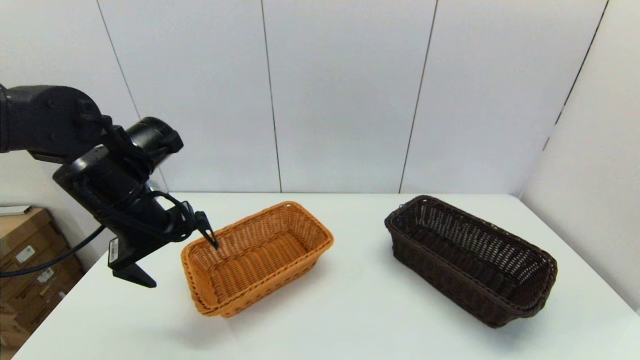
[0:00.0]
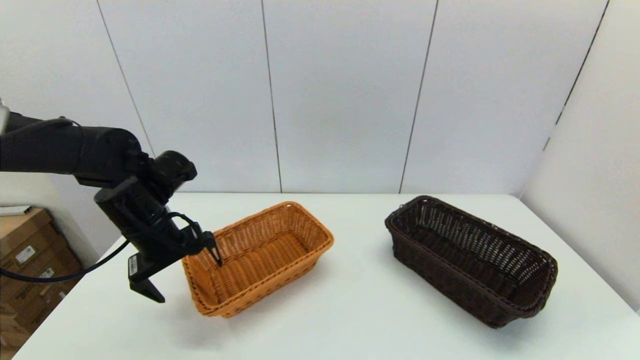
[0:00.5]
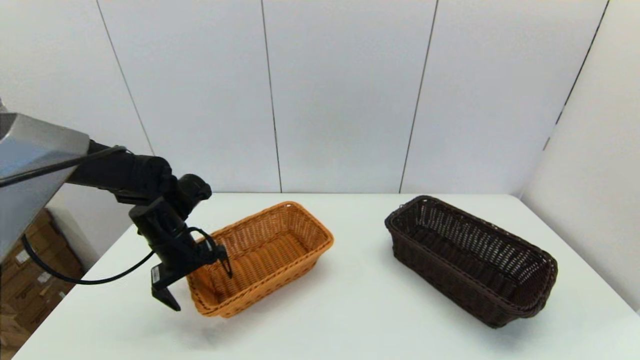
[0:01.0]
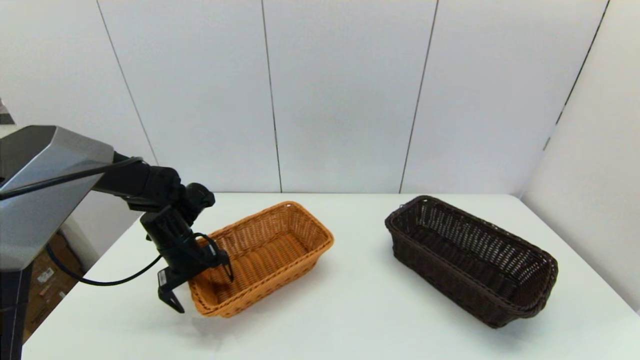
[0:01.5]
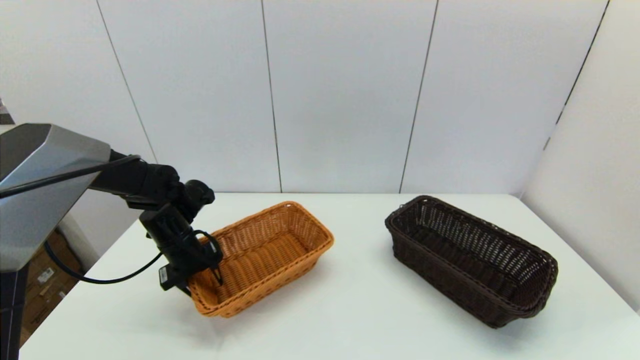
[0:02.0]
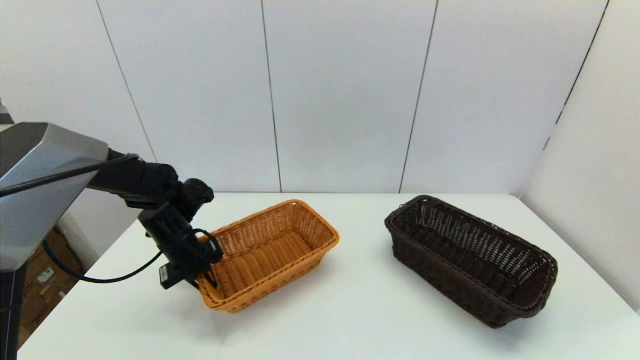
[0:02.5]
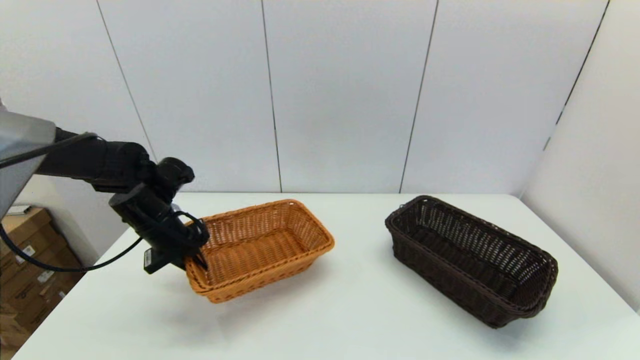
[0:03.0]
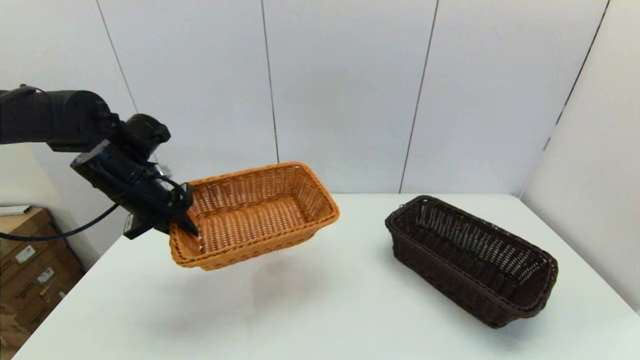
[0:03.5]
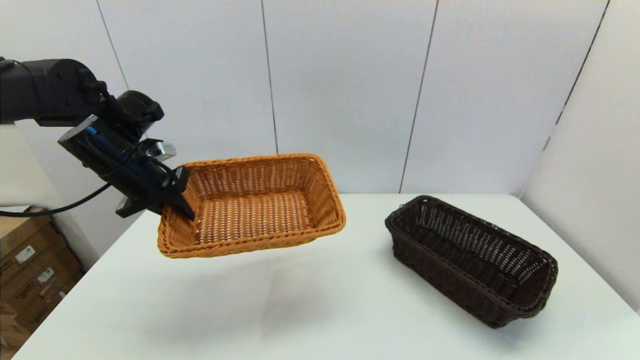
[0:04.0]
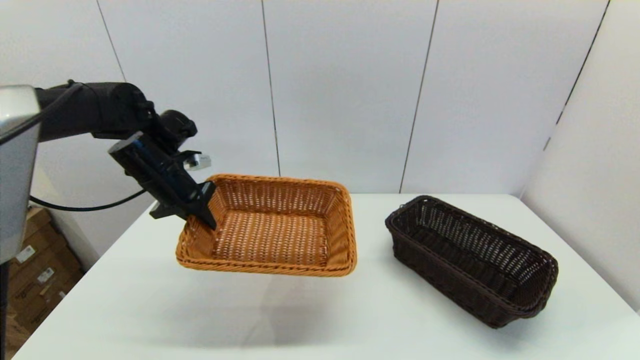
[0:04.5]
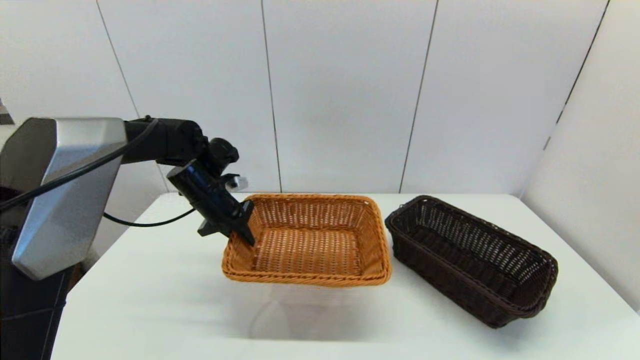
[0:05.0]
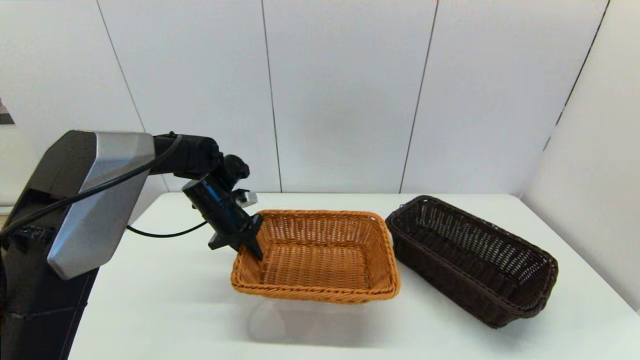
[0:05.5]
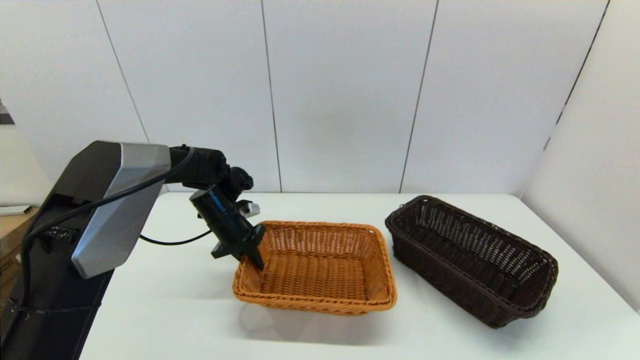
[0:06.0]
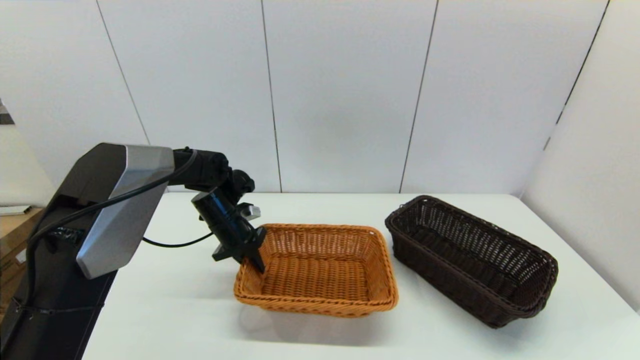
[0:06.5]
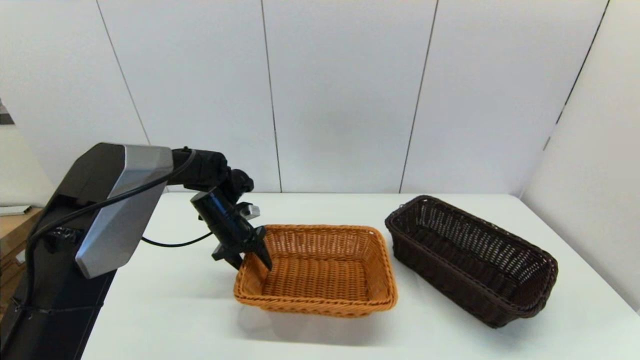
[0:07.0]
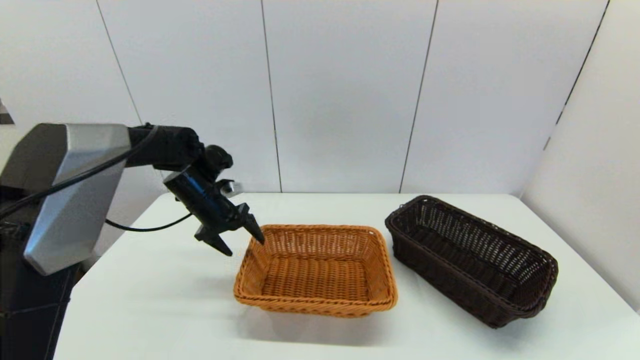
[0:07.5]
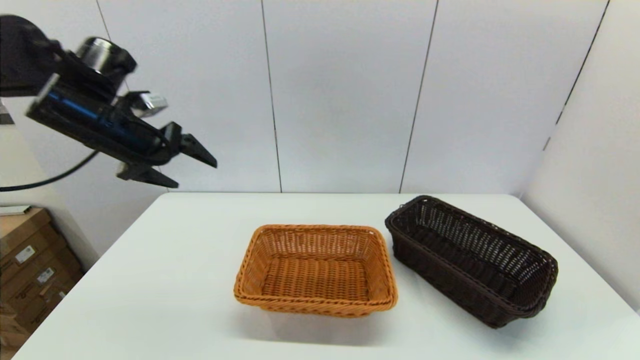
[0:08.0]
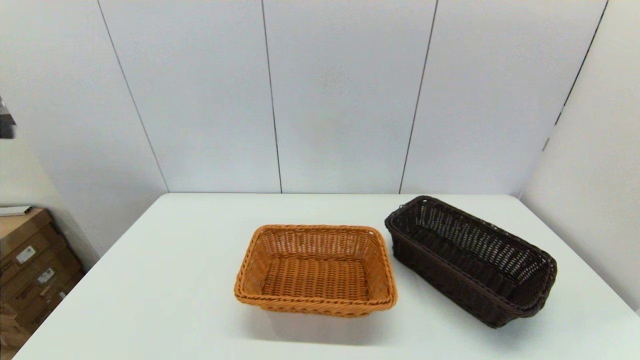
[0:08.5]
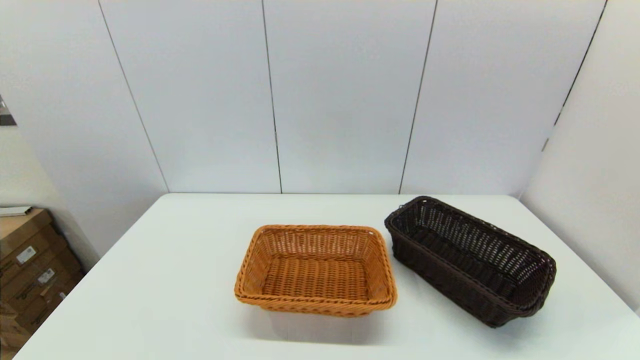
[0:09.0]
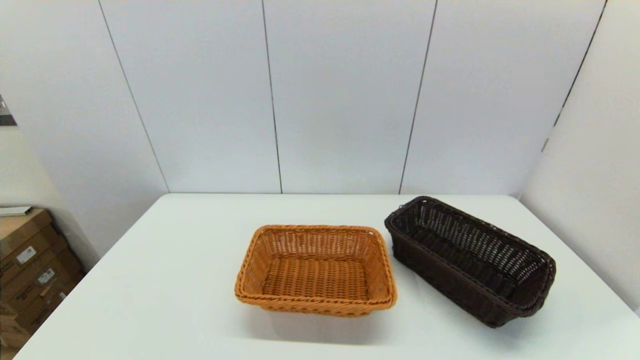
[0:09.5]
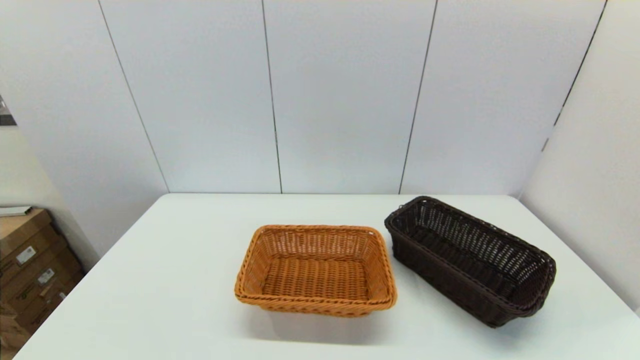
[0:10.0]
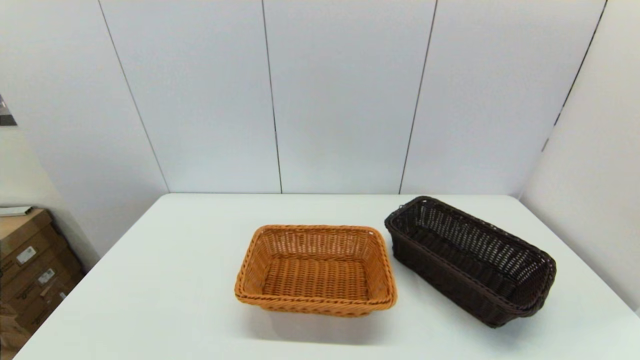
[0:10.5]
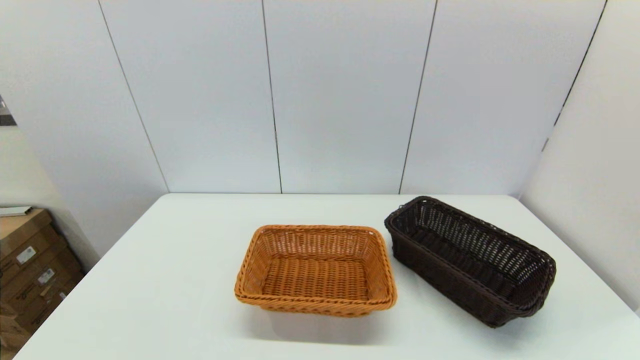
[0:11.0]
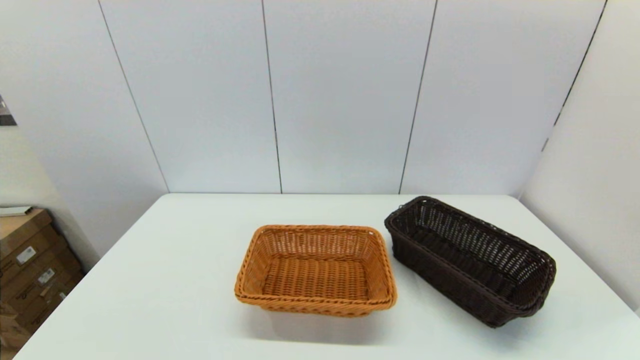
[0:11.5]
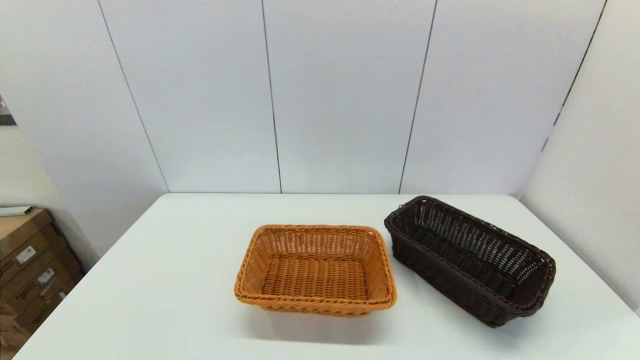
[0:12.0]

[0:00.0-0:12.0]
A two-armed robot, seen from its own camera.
Task of the whole recording: stack a basket on top of another basket.
Step, 0:00.0 to 0:02.5: Grasp the light basket with the left gripper.
Step, 0:03.0 to 0:07.0: Place the light basket on the middle of the table with the left gripper.
0:00.0 to 0:02.0: The left gripper travels downward and forward by about 15 cm, and closes its fingers.
0:02.0 to 0:04.0: The left gripper is displaced upward by about 15 cm.
0:04.0 to 0:06.0: The left gripper shifts roughly 20 cm downward, to the right and forward.
0:06.0 to 0:08.0: The left gripper is displaced upward and to the left by some 25 cm, and opens up.
0:08.0 to 0:10.0: The left gripper moves backward and downward, approximately 40 cm.

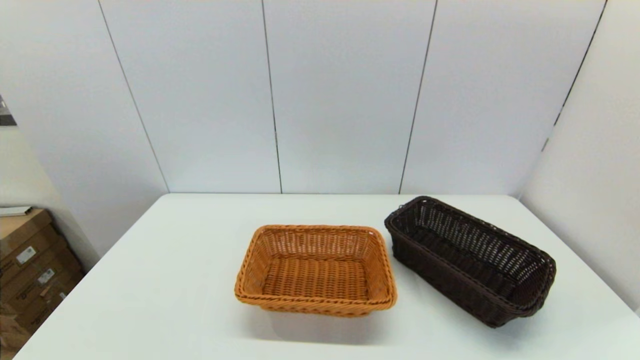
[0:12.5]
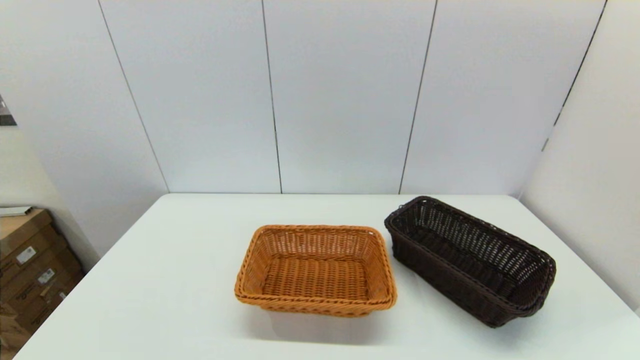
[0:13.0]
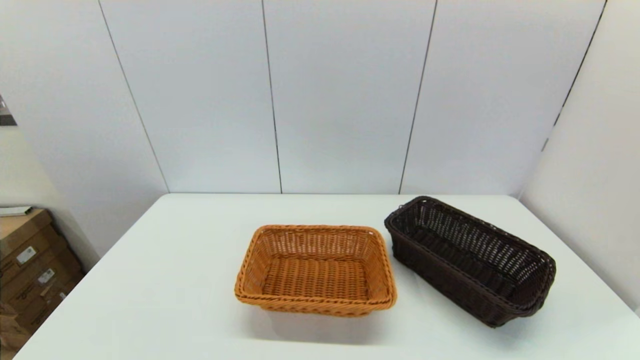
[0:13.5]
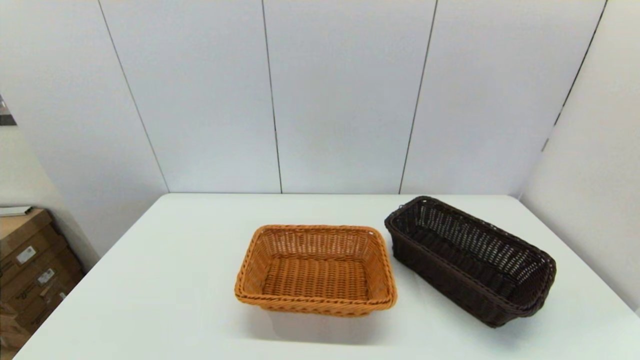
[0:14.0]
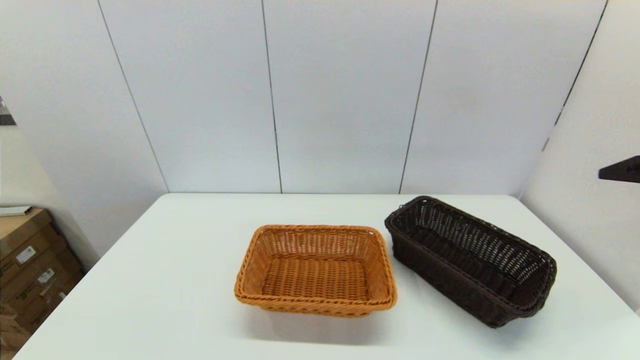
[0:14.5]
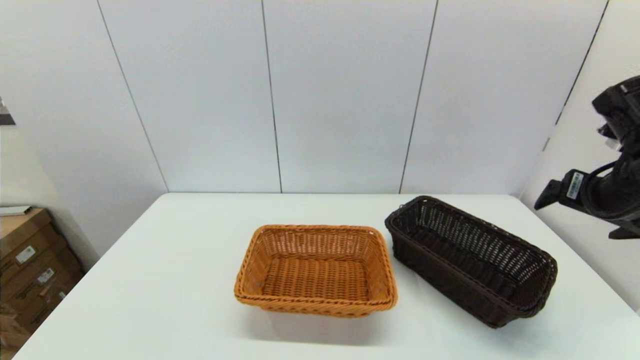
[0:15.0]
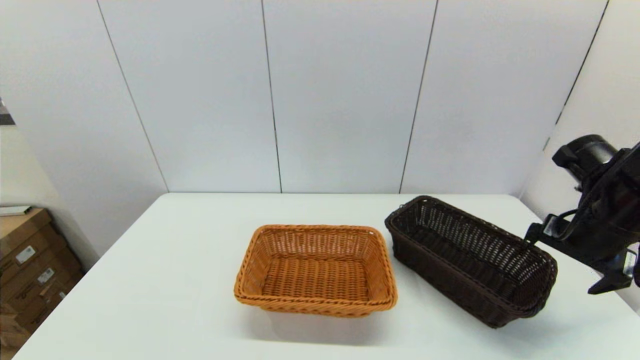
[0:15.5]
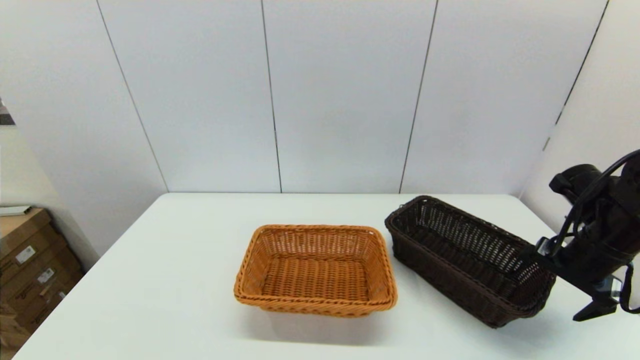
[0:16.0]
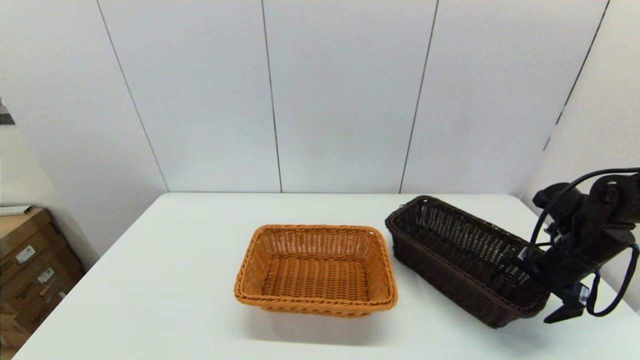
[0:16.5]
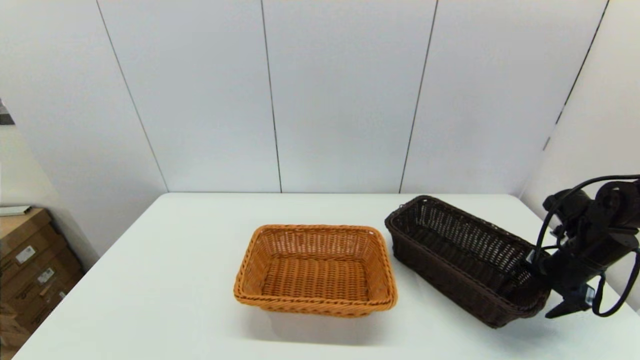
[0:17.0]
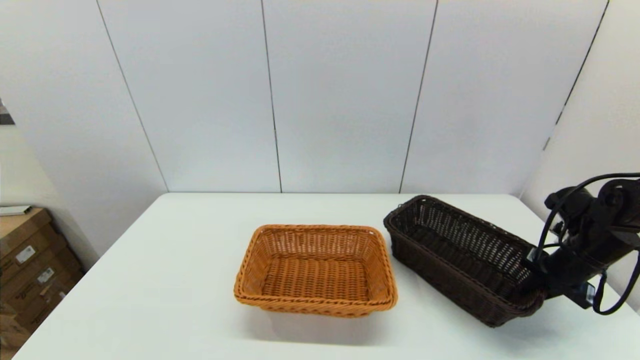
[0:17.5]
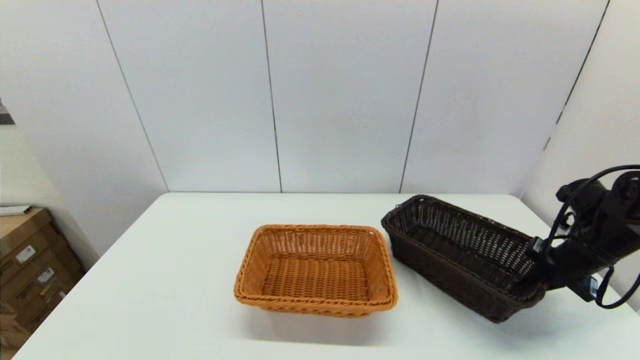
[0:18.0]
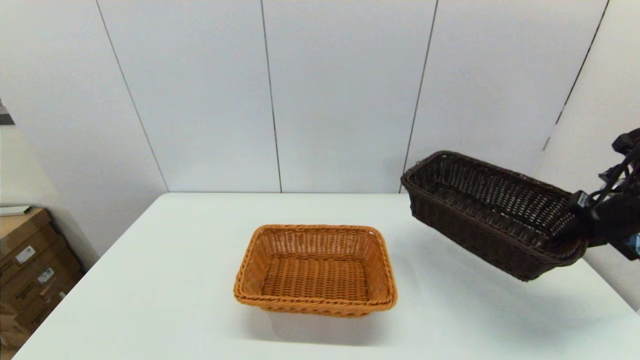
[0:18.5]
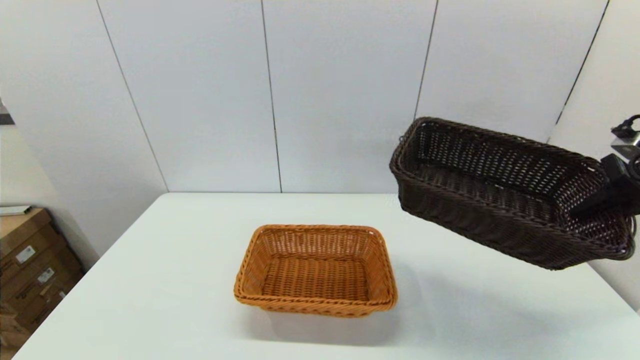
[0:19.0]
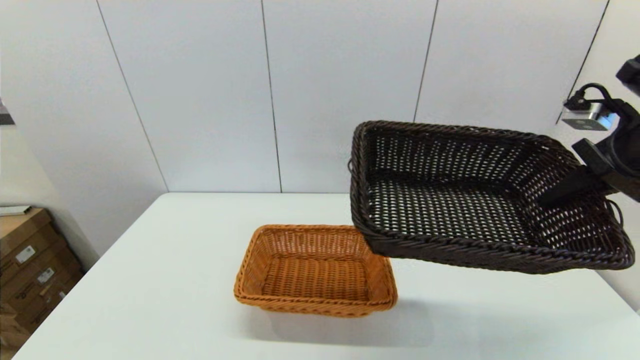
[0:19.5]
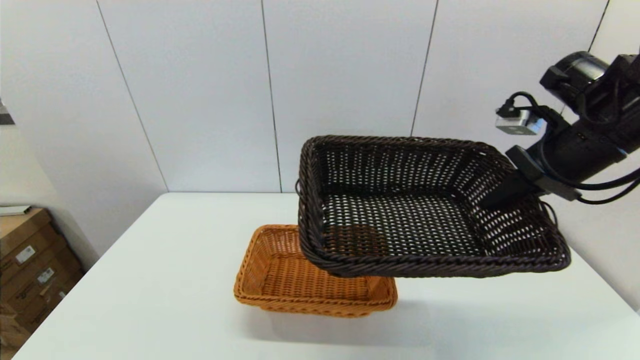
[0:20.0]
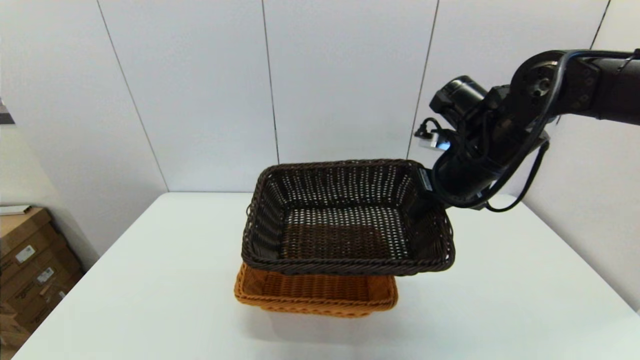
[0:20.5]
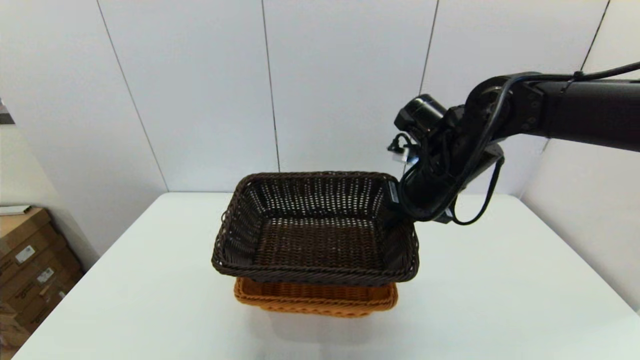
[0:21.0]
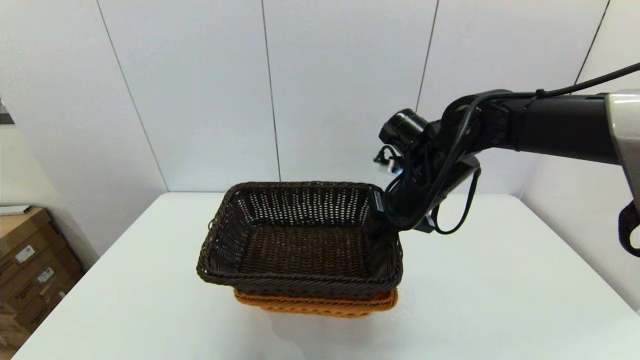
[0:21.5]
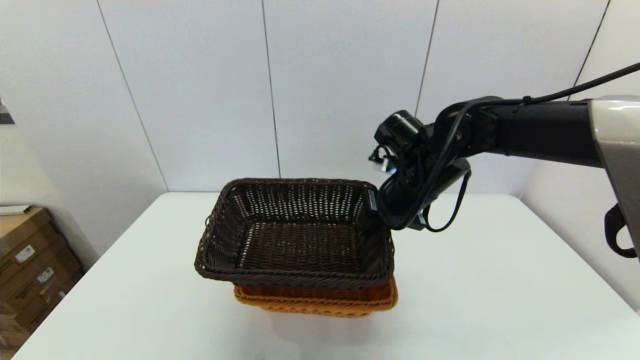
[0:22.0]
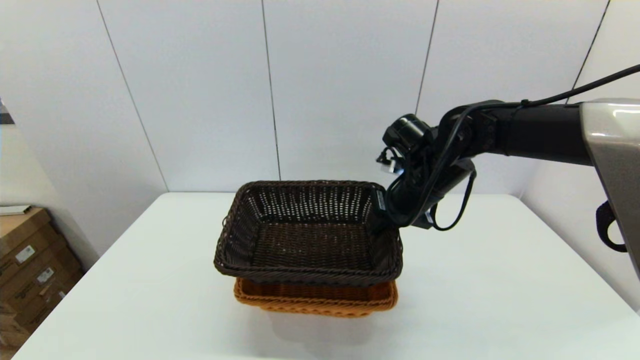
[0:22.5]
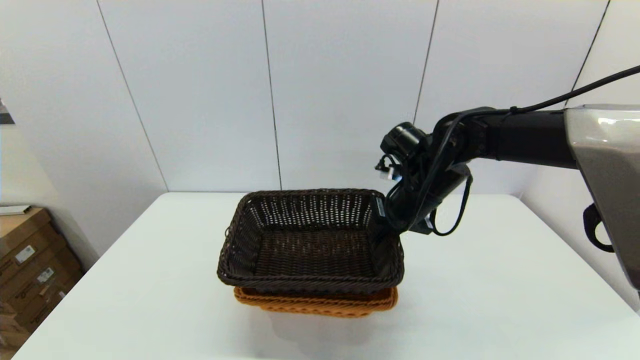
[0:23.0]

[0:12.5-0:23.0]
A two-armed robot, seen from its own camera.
Task of the whole recording: stack a basket on top of another basket.
Step, 0:12.5 to 0:17.5: Grasp the dark basket with the right gripper.
0:14.5 to 0:16.5: The right gripper shifts roughly 25 cm downward and forward.
0:16.5 to 0:19.0: The right gripper is displaced upward by about 15 cm, and closes.
0:19.0 to 0:21.0: The right gripper is displaced to the left by some 25 cm.
0:21.0 to 0:23.0: The right gripper changes place by approximately 5 cm.
